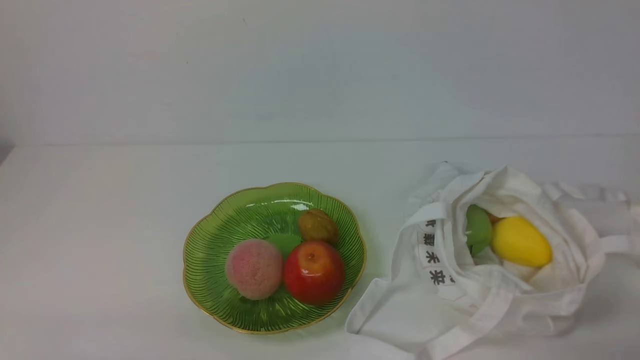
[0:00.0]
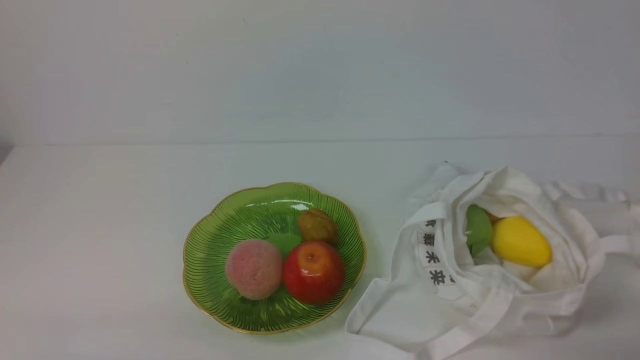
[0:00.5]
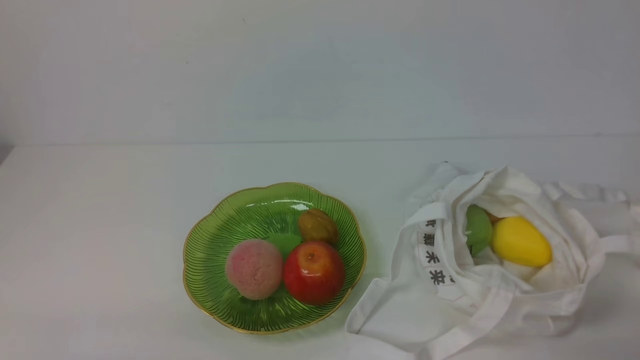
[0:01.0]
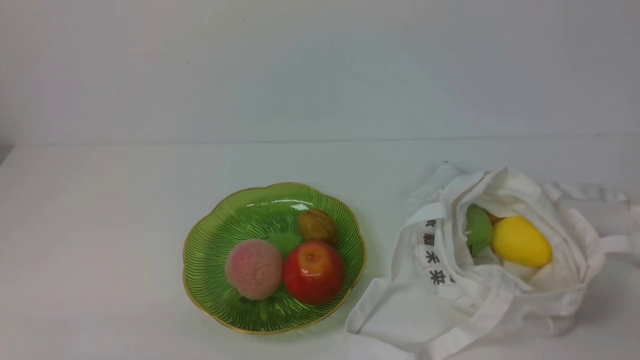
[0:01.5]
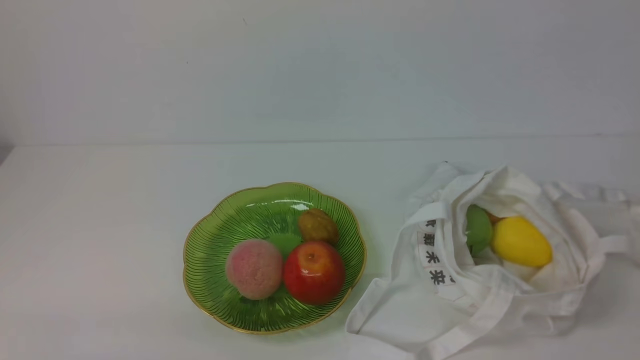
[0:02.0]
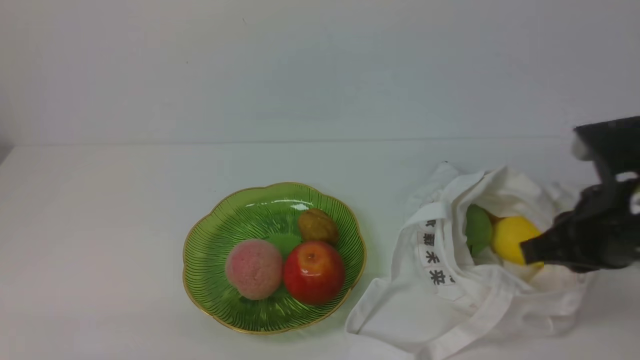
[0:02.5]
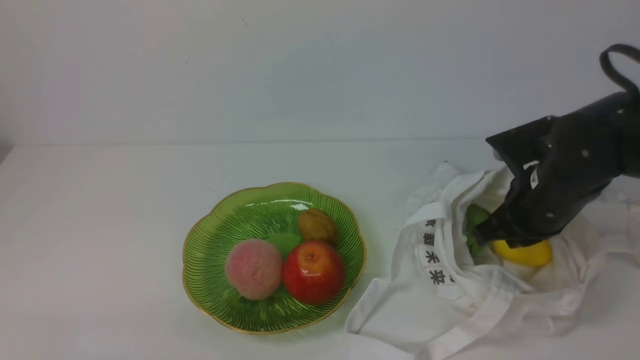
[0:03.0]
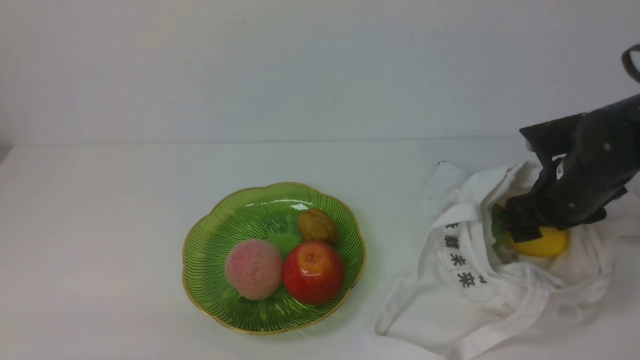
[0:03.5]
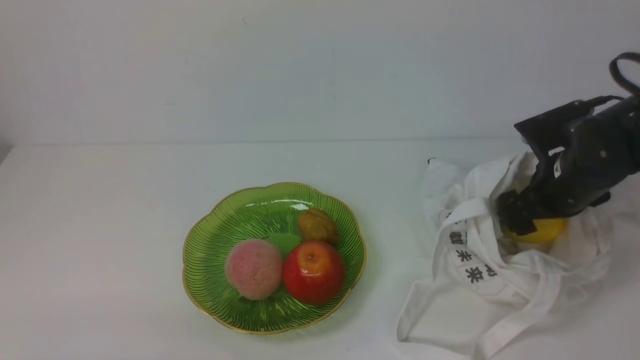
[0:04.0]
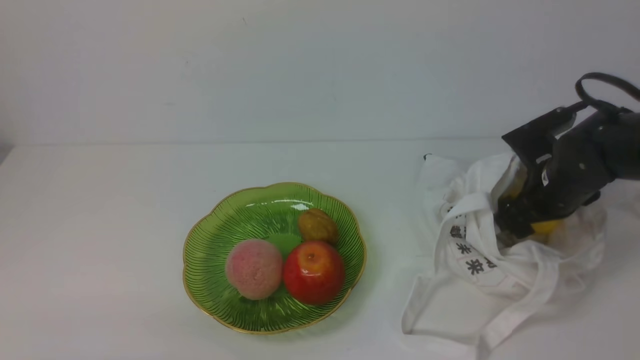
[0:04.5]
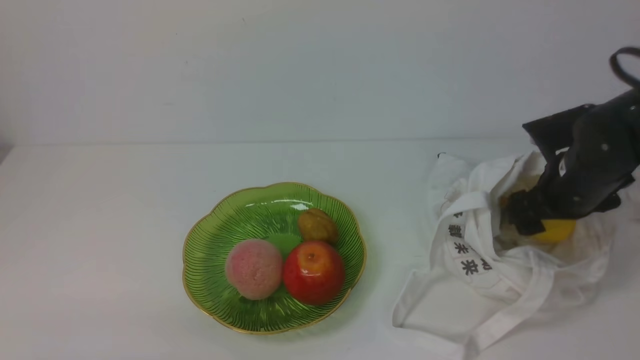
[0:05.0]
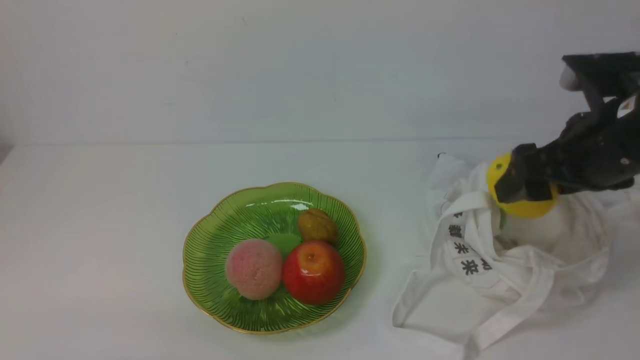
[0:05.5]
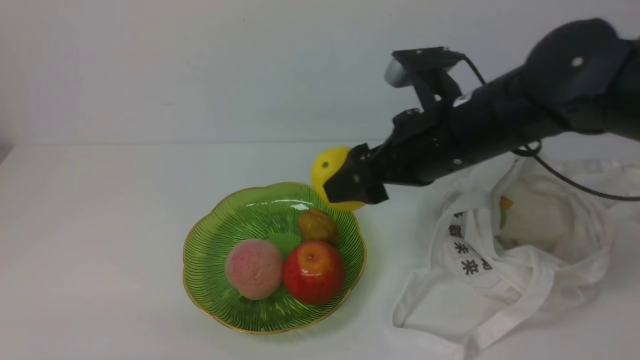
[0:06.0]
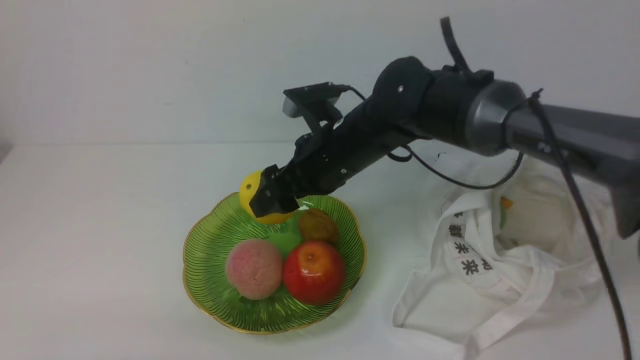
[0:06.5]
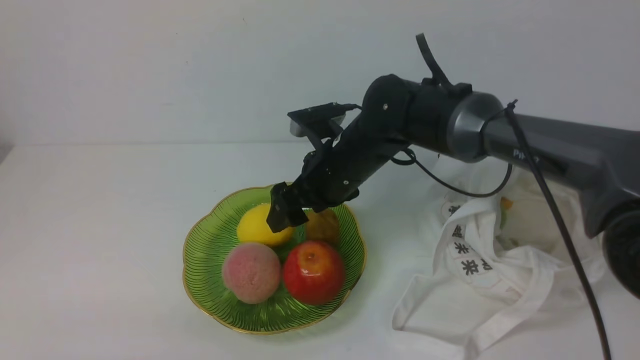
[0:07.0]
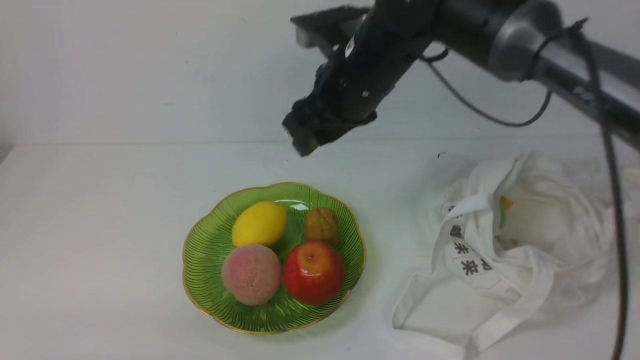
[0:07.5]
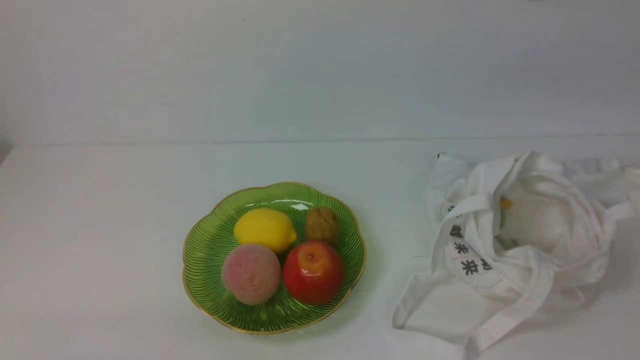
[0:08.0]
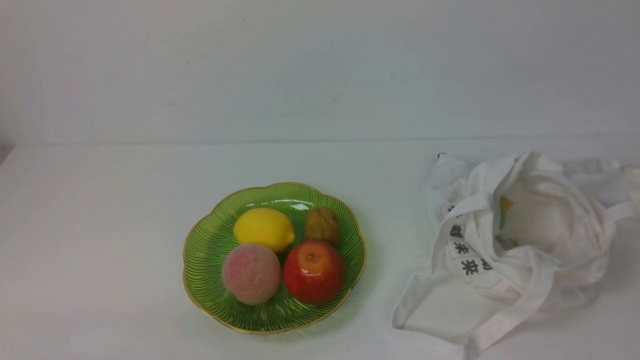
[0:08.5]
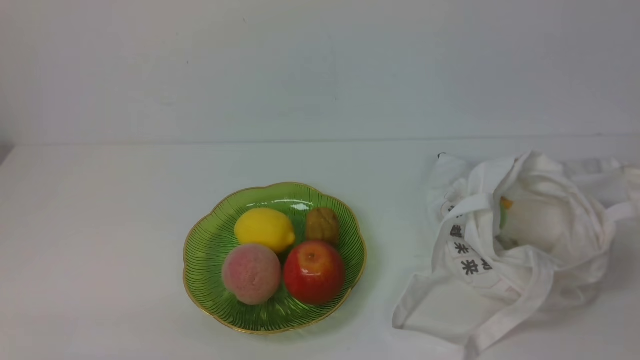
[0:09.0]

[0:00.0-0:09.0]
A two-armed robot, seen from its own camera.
Step, 0:00.0 to 0:05.0: use the right arm to grab a lemon from the bag.
Step, 0:05.5 to 0:07.0: use the right arm to put the lemon into the empty plate on the left.
0:02.0 to 0:04.5: The right gripper goes approximately 30 cm forward and downward, and opens.
0:04.5 to 0:07.0: The right gripper moves to the left, about 25 cm.
0:07.0 to 0:09.0: The right gripper goes approximately 40 cm backward and to the right, and closes.

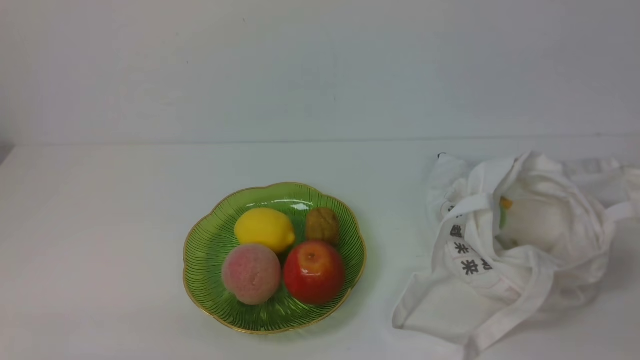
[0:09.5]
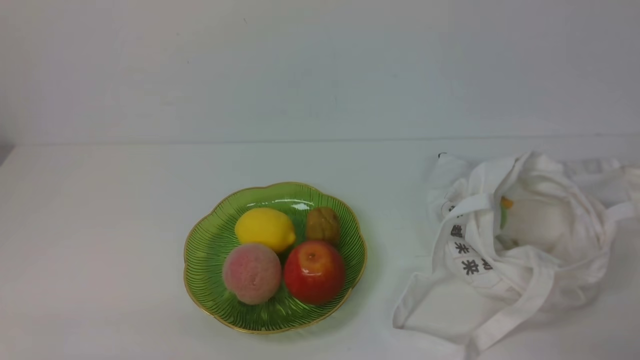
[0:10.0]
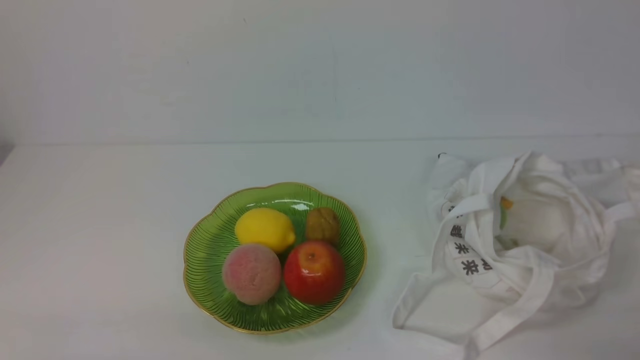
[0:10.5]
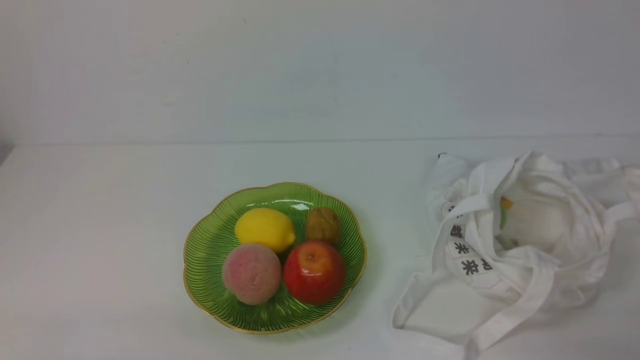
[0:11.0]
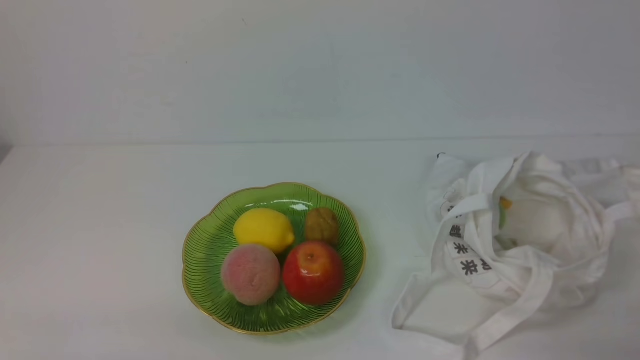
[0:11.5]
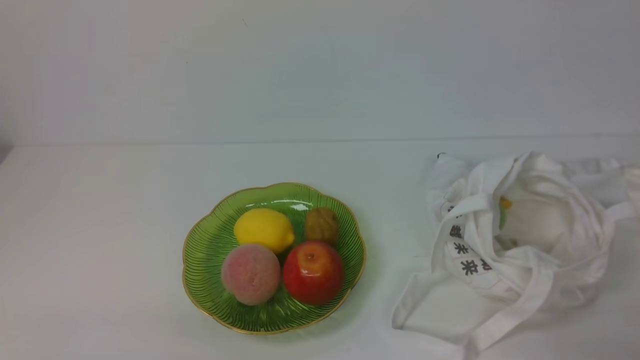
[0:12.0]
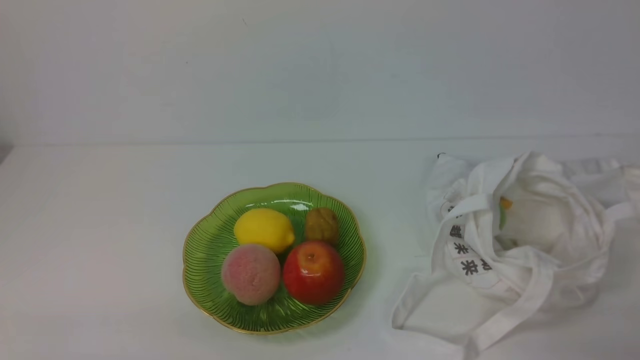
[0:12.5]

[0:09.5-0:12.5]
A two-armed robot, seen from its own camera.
0:11.0 to 0:12.5: Both grippers stay about where they are.

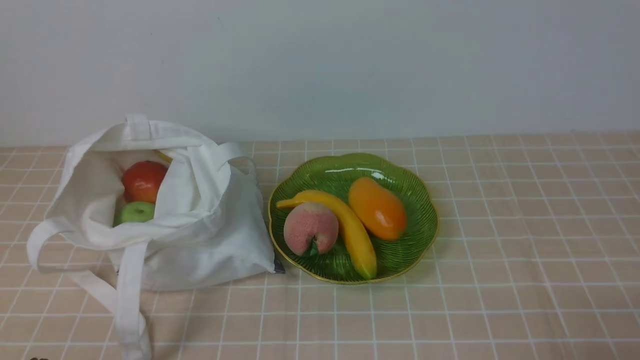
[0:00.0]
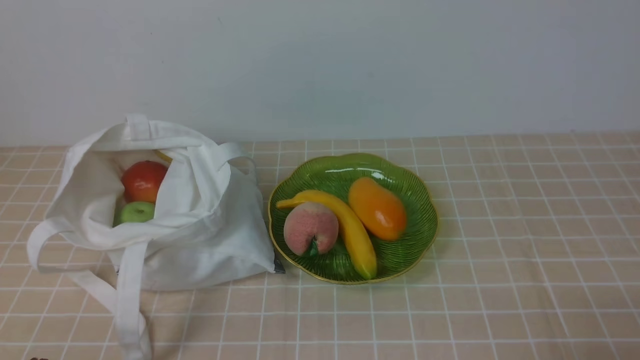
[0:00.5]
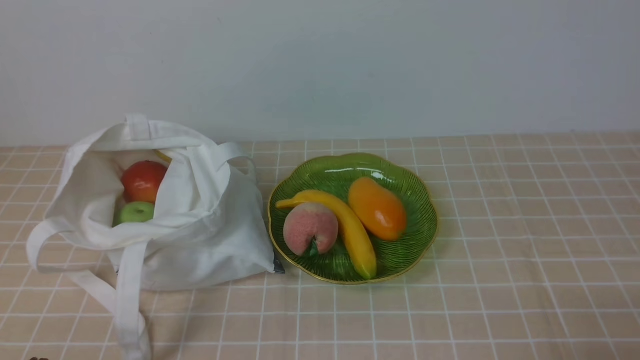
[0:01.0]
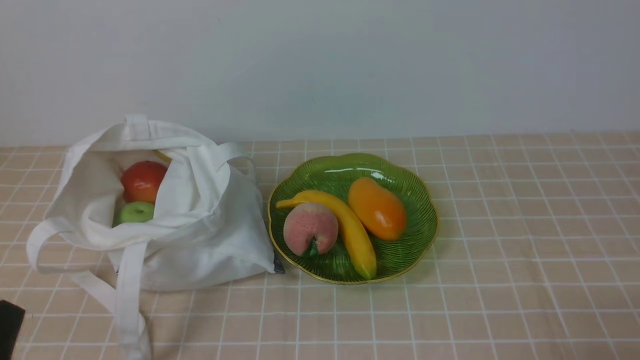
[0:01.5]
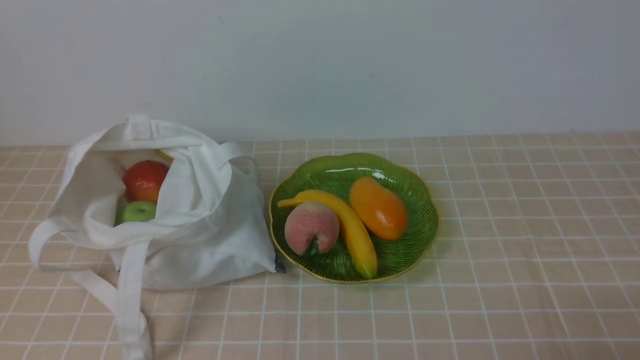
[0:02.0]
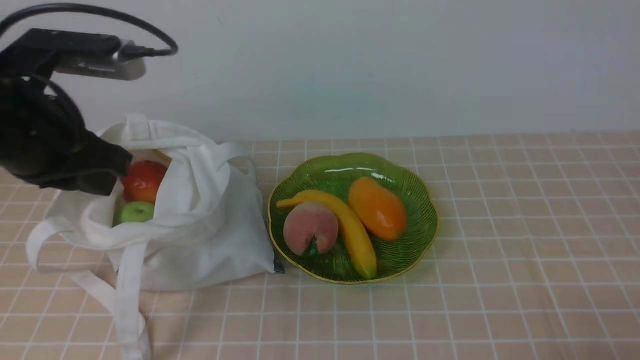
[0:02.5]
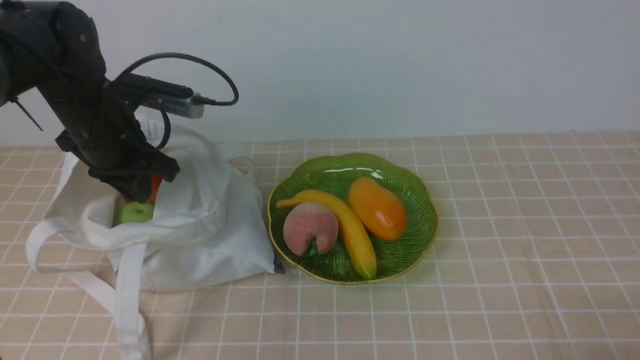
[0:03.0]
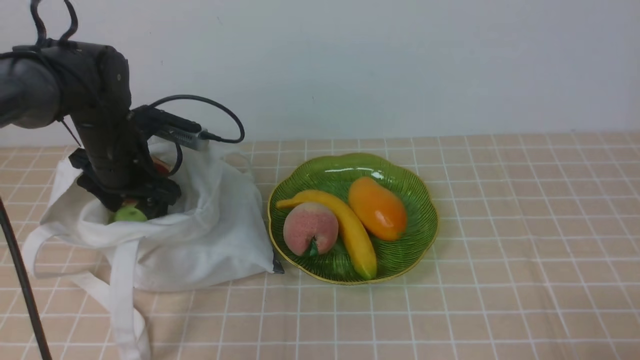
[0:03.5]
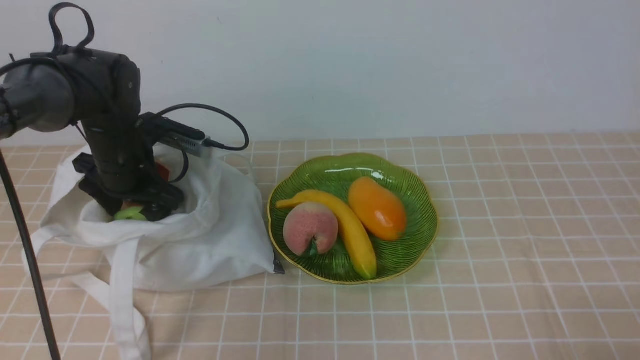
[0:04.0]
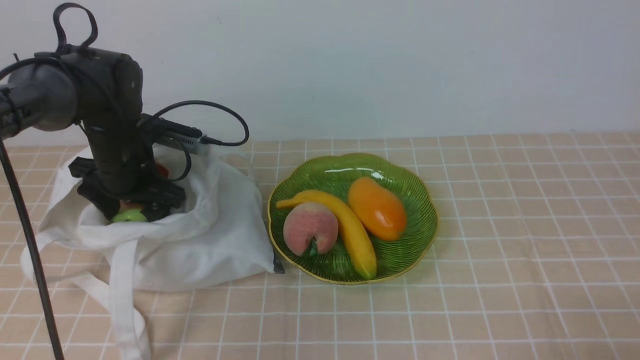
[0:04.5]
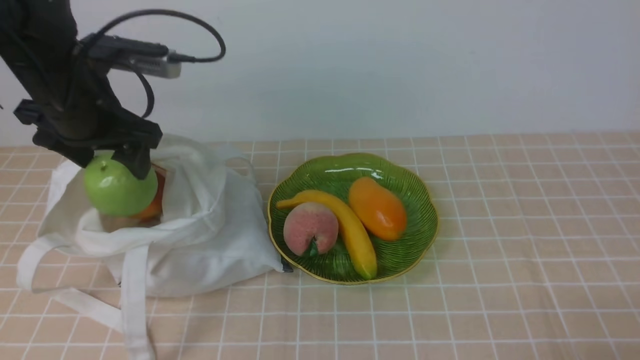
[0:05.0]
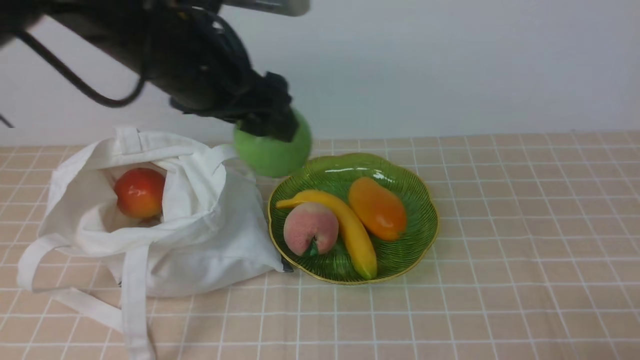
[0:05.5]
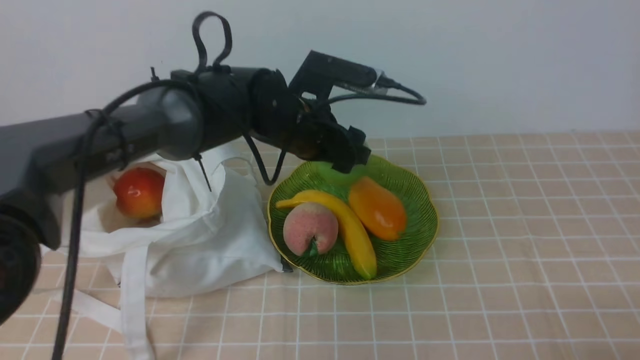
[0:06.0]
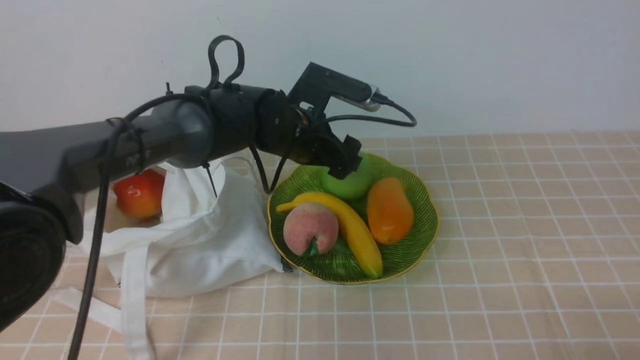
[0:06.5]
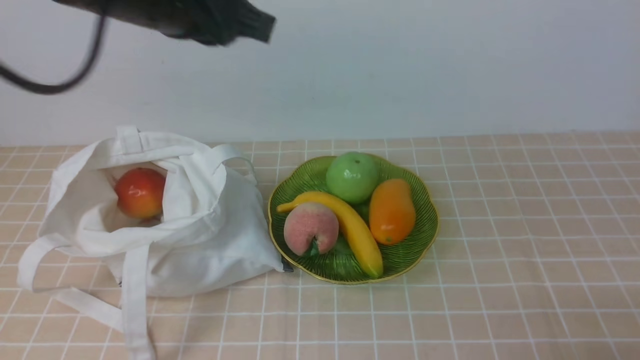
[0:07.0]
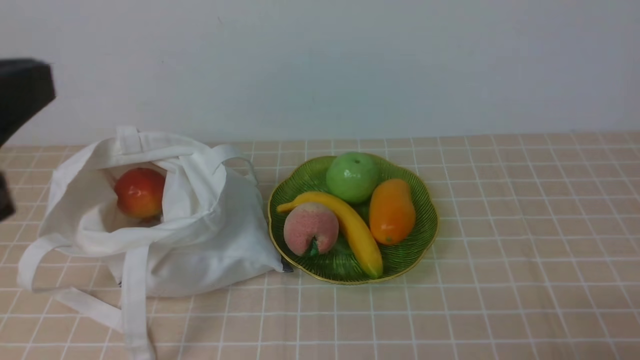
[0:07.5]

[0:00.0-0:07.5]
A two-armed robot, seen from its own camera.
Step, 0:05.0 to 0:06.5: use the right arm to put the apple into the empty plate on the left.
0:02.0 to 0:04.0: The left gripper moves forward and downward, about 40 cm, and opens up.
0:04.0 to 0:05.5: The left gripper moves upward, to the right and backward, approximately 20 cm.
0:05.5 to 0:07.5: The left gripper moves backward and to the left, roughly 25 cm, and closes up.
